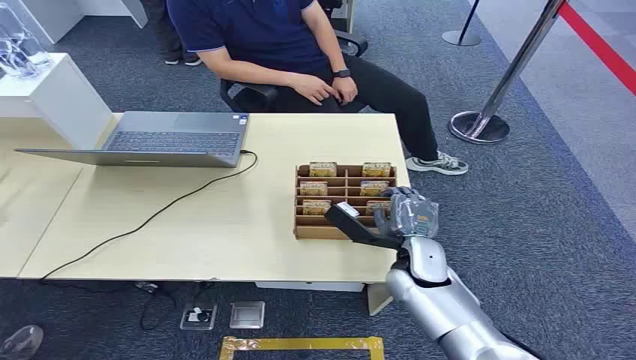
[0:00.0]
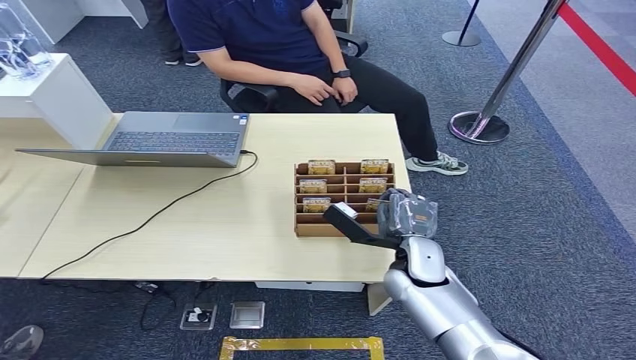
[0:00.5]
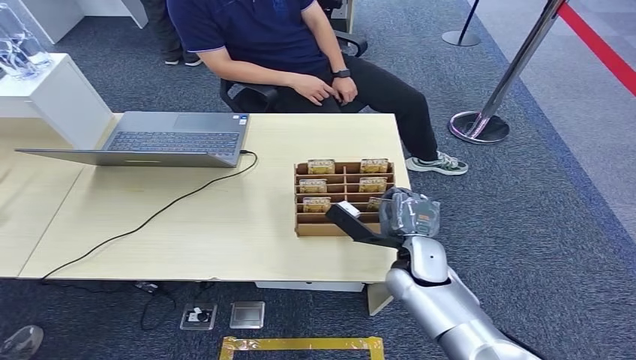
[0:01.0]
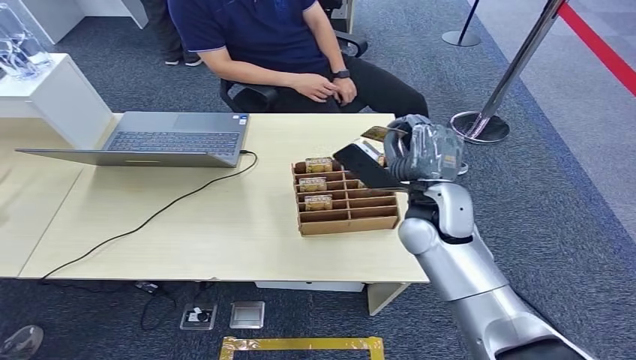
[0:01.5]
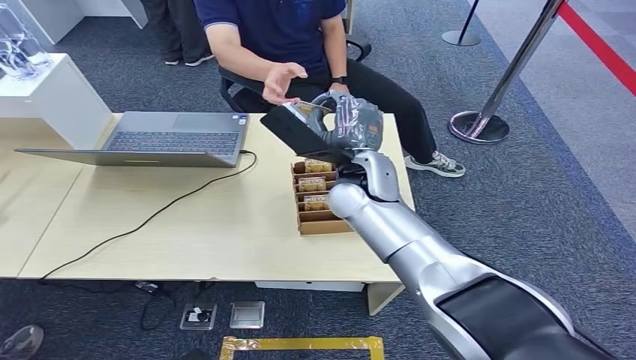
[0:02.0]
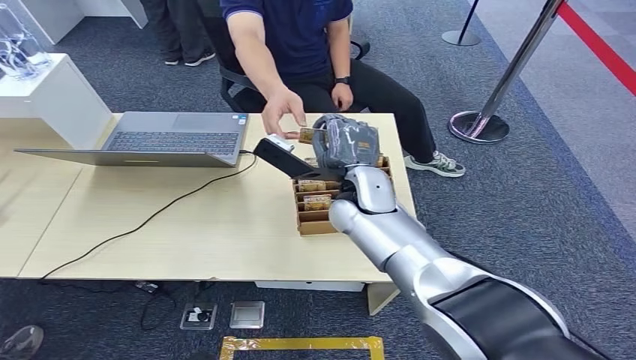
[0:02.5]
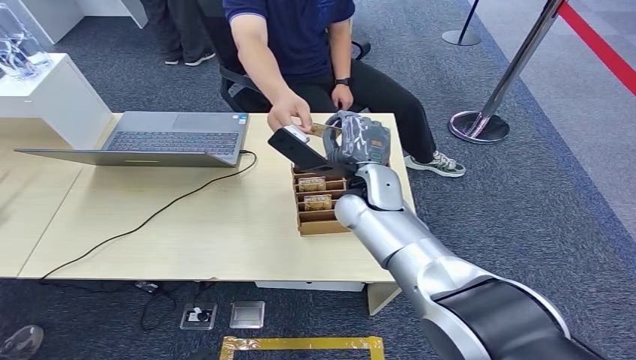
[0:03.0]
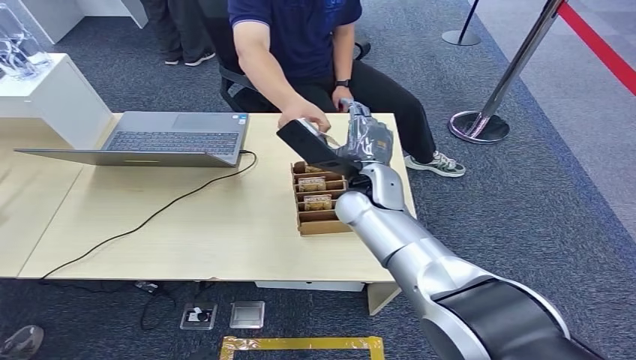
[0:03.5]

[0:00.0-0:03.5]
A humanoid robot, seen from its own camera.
Step, 0:00.0 to 0:01.5: Pick up the room card from the card holder.
Step, 0:02.0 to 0:03.5: Hand the room card to the target.
0:02.0 to 0:03.5: The hands stay close to where they were, moving slightly.
